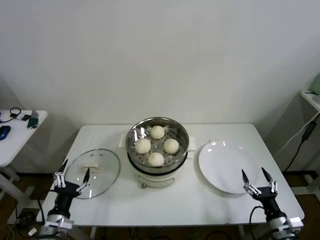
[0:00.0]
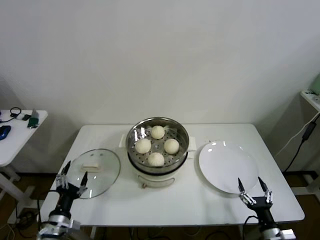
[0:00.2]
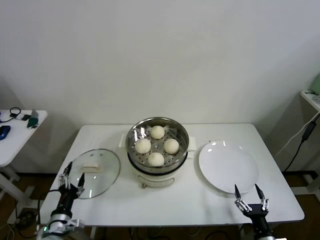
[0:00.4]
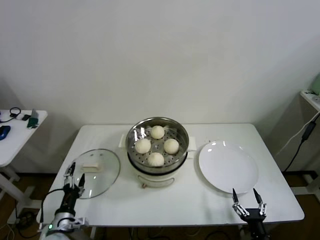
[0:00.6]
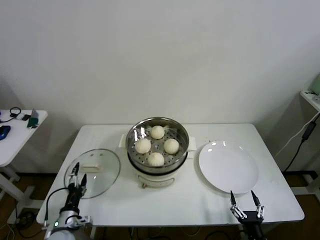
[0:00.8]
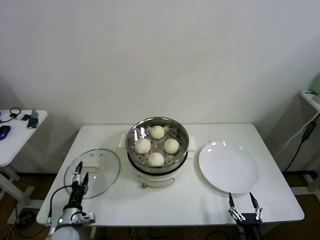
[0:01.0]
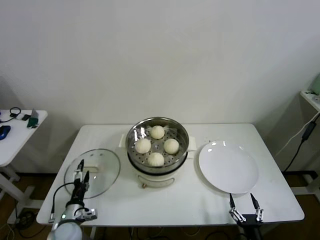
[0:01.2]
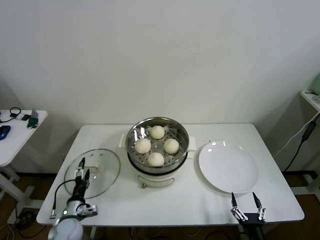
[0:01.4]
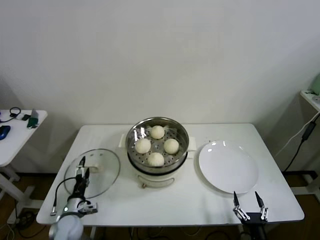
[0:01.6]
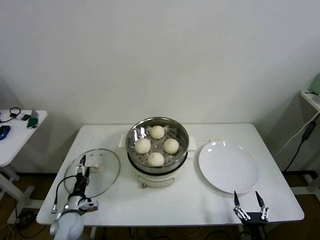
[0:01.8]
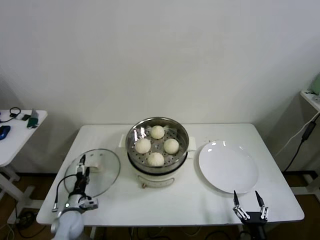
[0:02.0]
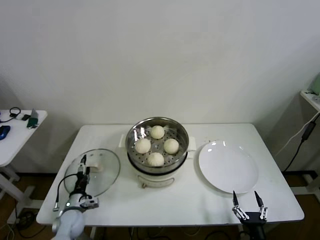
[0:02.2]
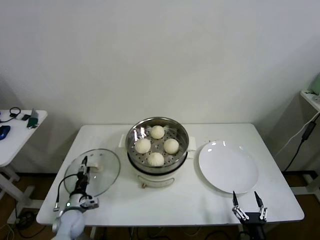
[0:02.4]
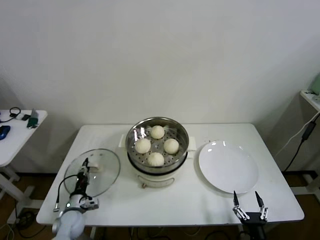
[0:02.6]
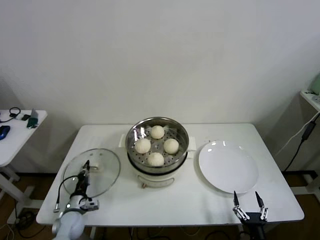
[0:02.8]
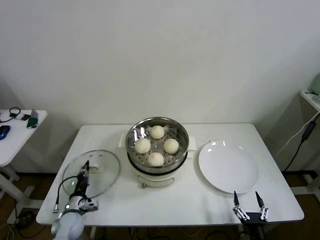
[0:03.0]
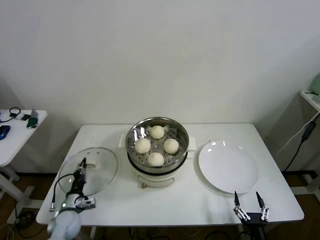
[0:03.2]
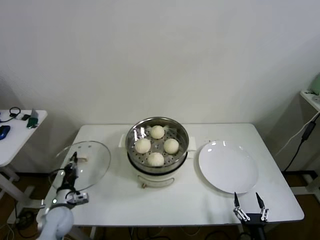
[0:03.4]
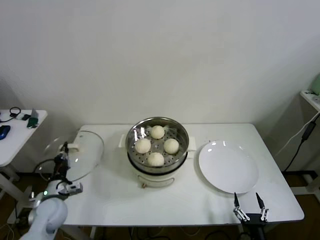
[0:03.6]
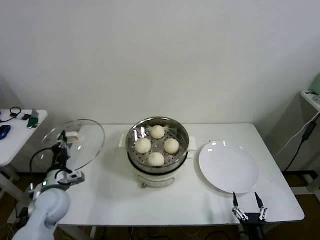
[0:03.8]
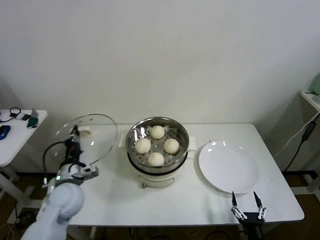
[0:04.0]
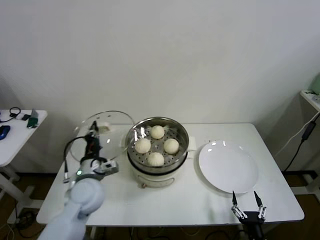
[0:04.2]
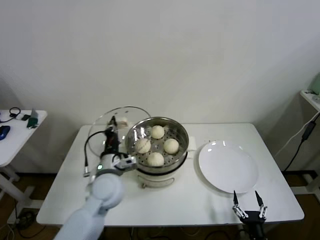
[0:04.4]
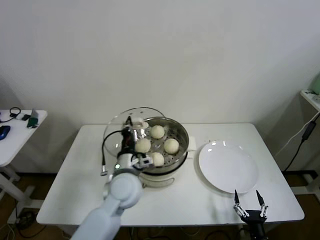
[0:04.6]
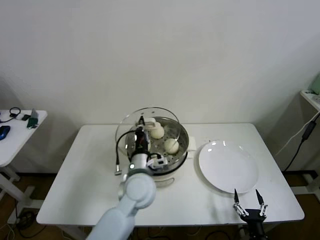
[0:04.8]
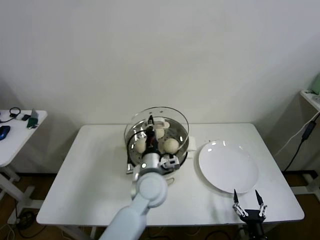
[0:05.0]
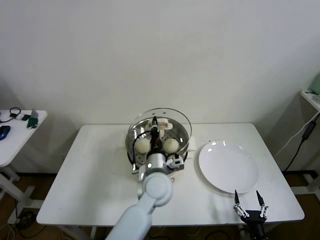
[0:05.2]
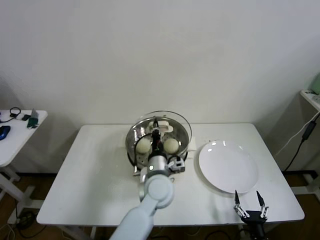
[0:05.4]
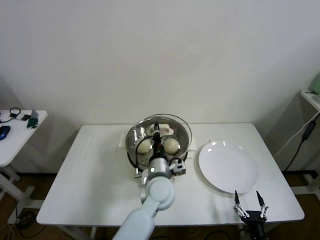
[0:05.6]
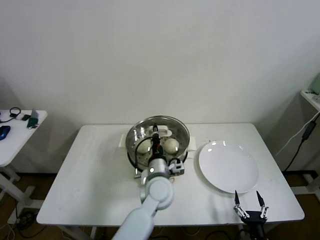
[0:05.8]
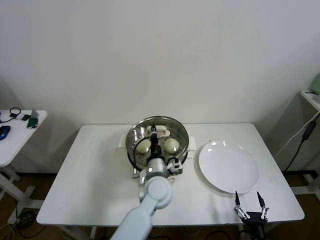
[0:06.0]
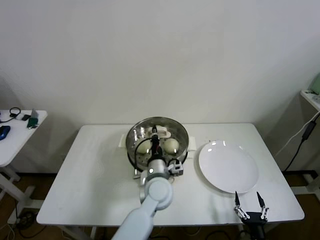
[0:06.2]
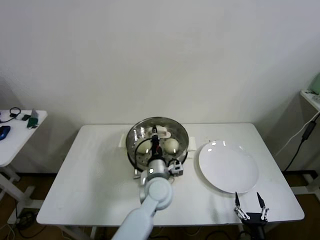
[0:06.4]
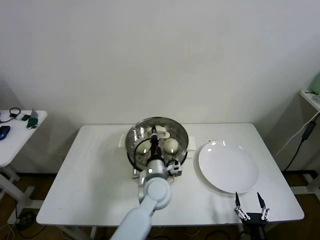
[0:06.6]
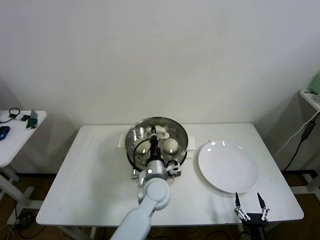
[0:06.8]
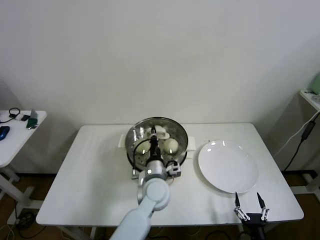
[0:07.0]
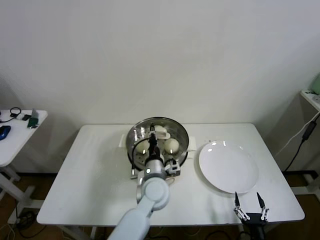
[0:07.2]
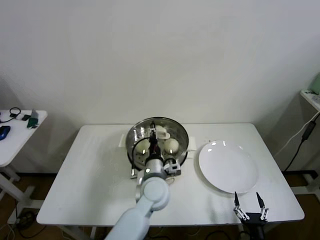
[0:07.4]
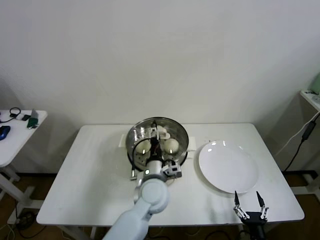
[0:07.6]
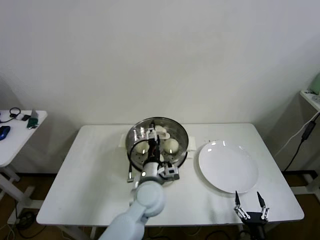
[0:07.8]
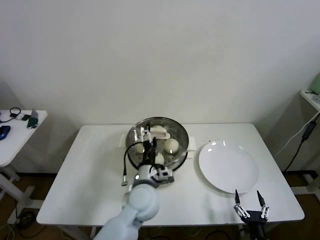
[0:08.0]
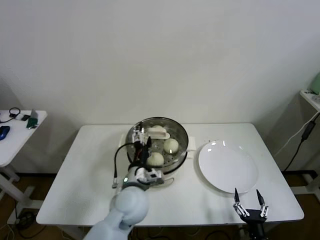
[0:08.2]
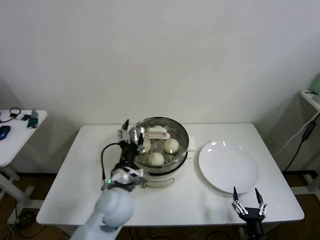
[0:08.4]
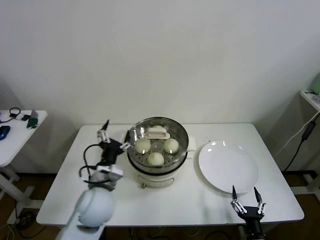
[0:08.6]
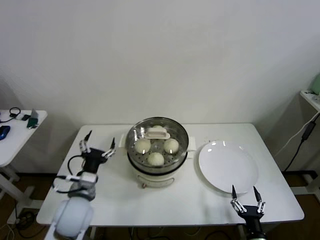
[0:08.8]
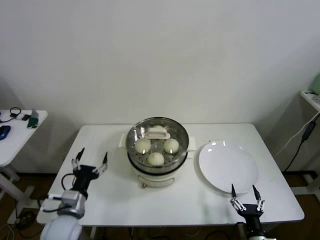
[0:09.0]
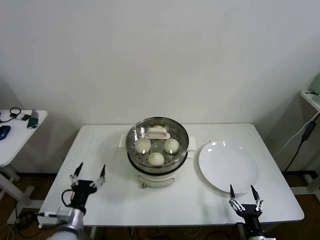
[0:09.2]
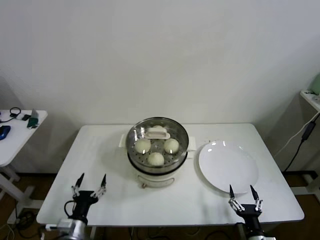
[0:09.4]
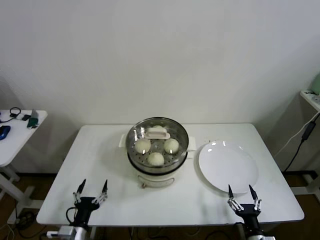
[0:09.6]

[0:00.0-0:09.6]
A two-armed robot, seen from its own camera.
Step, 0:00.0 to 0:02.8: Grasp the pot lid with left gripper.
Step, 0:03.0 to 0:07.0: Place the pot lid on the steamer with left gripper.
0:00.0 to 0:01.6: The left gripper shifts approximately 15 cm downward and forward, while the right gripper heads backward, to the left and downward, covering about 10 cm.
0:01.6 to 0:03.2: The left gripper closes up.
0:03.2 to 0:04.8: The left gripper goes some 35 cm to the right and upward.
0:04.8 to 0:06.4: The left gripper travels to the right and downward by approximately 10 cm.
0:06.4 to 0:08.0: The left gripper shifts by some 5 cm, and opens up.
0:08.0 to 0:09.6: The left gripper goes about 30 cm to the left, backward and downward.
